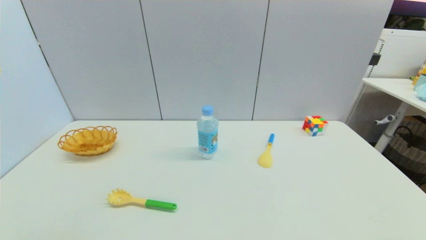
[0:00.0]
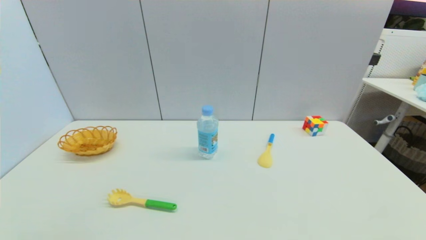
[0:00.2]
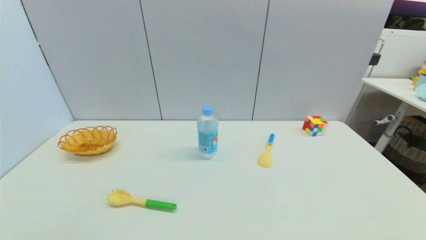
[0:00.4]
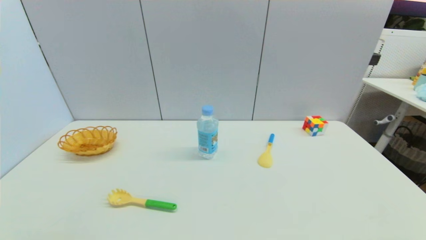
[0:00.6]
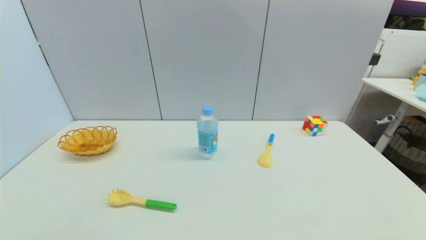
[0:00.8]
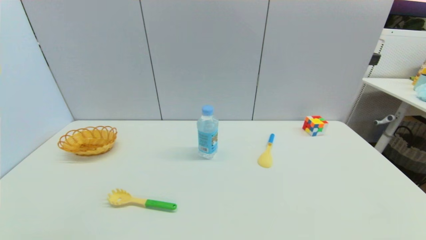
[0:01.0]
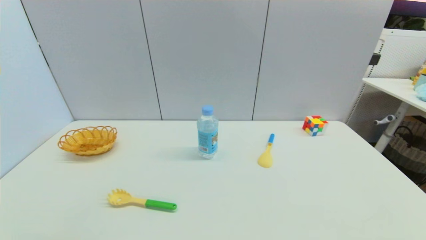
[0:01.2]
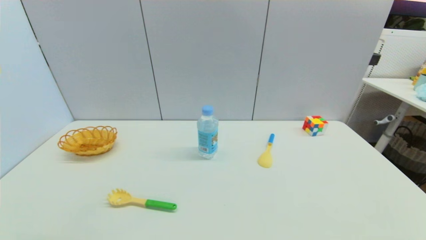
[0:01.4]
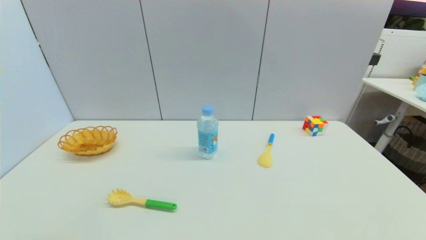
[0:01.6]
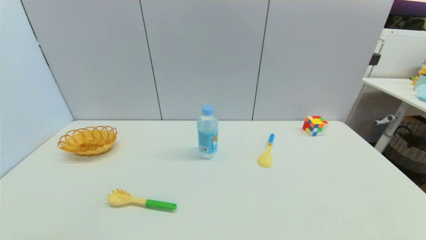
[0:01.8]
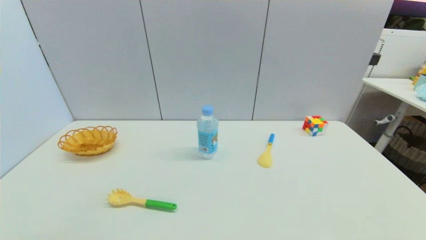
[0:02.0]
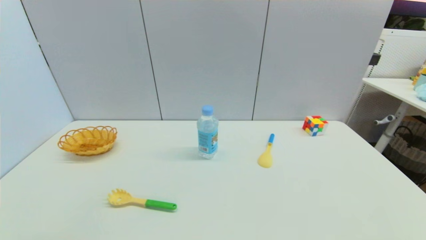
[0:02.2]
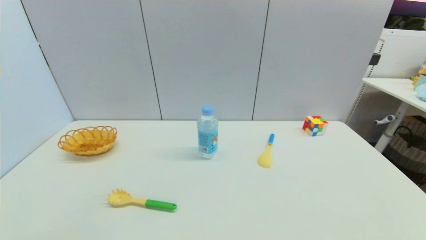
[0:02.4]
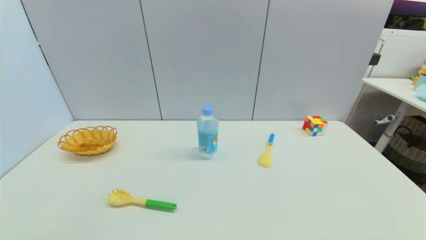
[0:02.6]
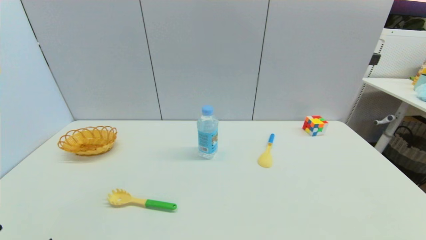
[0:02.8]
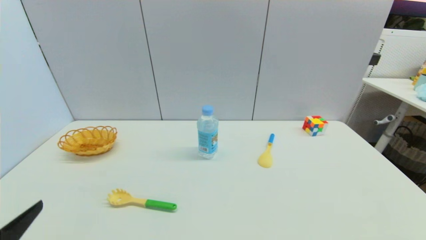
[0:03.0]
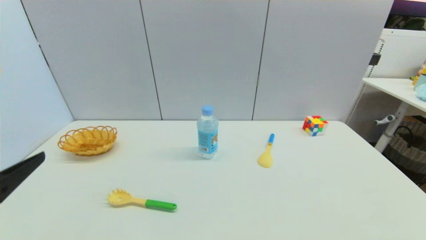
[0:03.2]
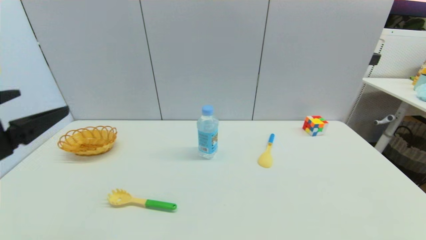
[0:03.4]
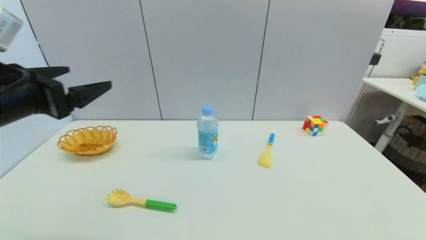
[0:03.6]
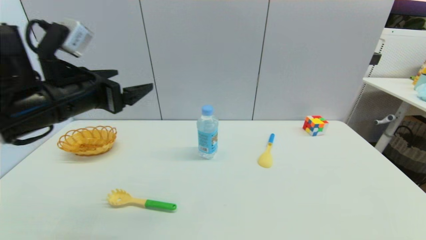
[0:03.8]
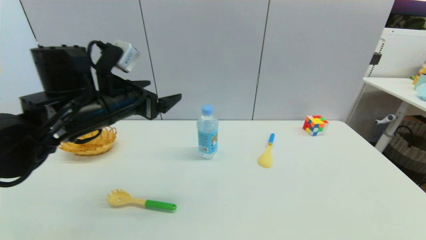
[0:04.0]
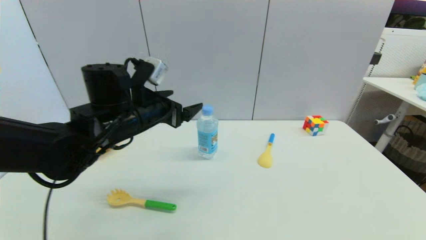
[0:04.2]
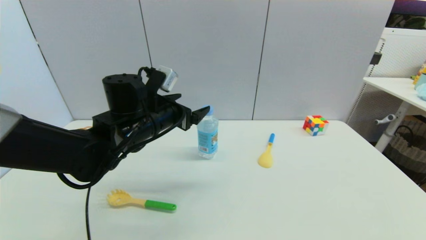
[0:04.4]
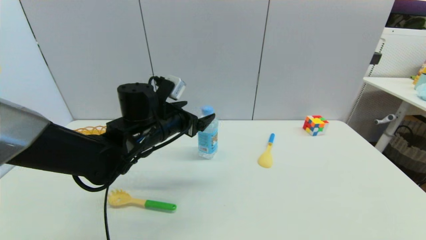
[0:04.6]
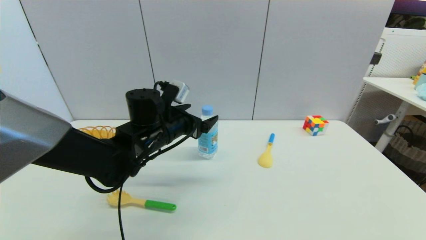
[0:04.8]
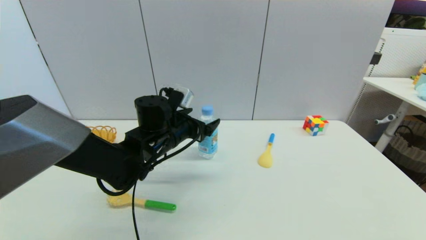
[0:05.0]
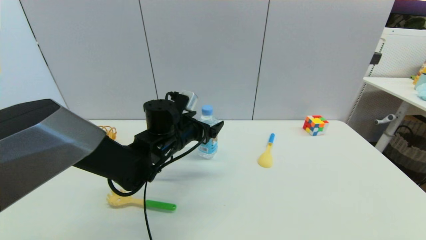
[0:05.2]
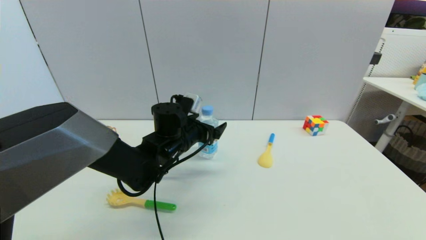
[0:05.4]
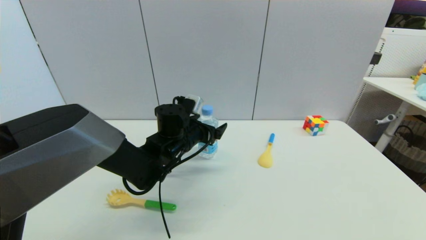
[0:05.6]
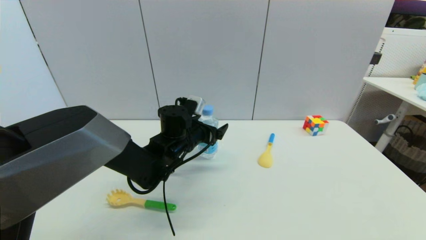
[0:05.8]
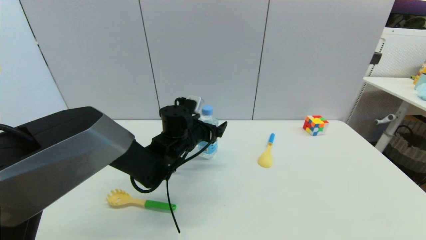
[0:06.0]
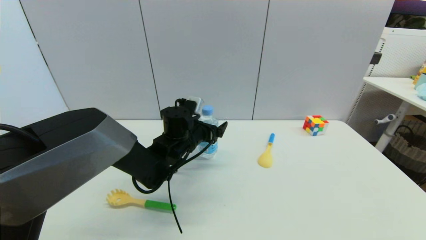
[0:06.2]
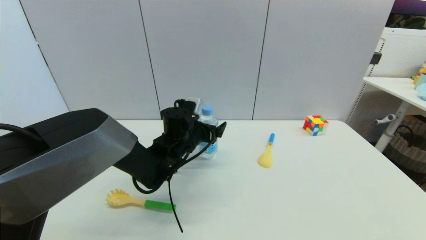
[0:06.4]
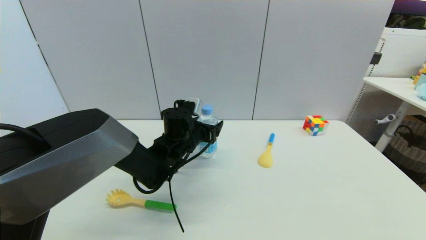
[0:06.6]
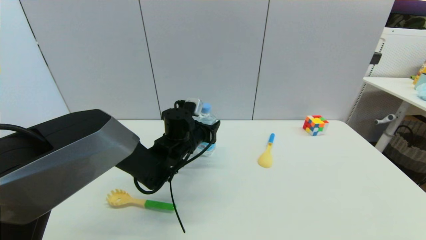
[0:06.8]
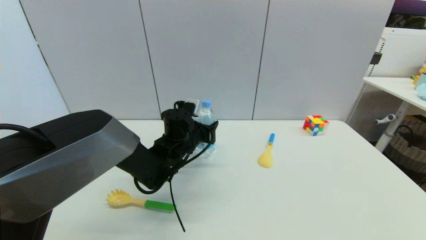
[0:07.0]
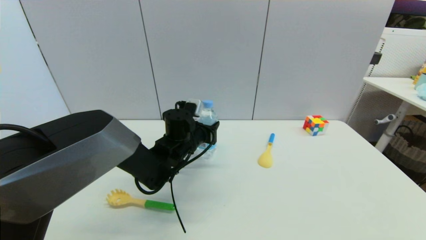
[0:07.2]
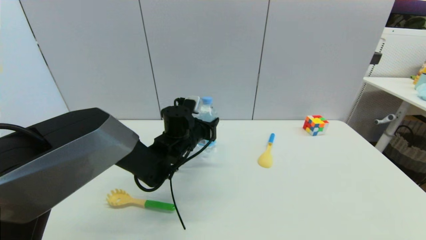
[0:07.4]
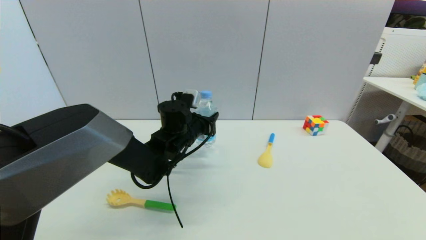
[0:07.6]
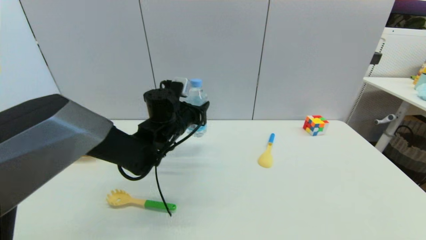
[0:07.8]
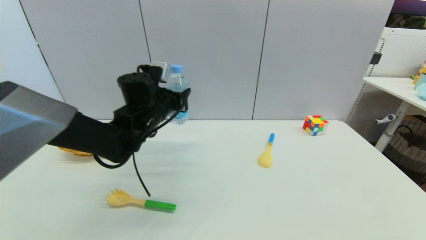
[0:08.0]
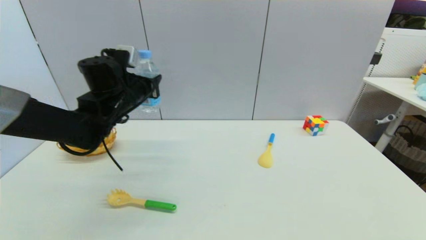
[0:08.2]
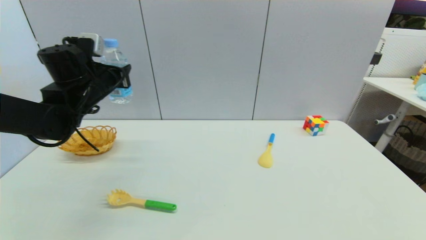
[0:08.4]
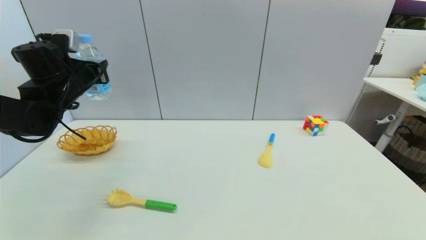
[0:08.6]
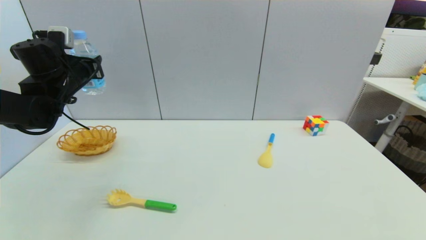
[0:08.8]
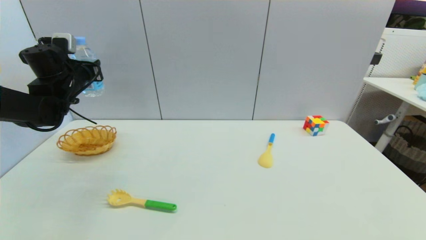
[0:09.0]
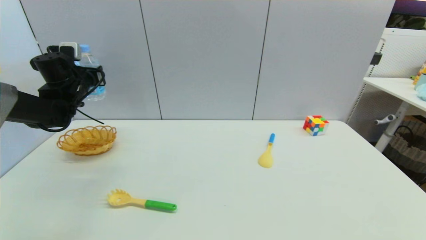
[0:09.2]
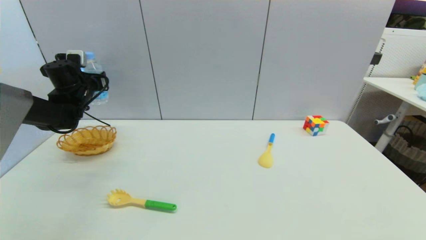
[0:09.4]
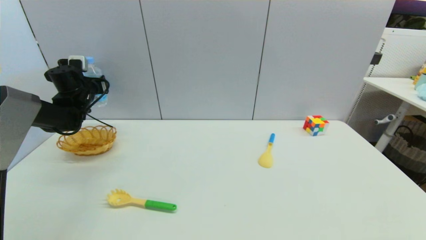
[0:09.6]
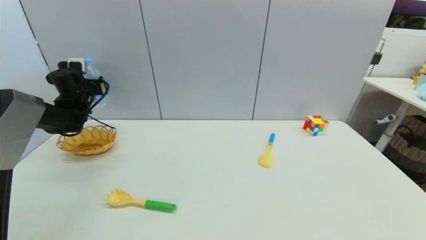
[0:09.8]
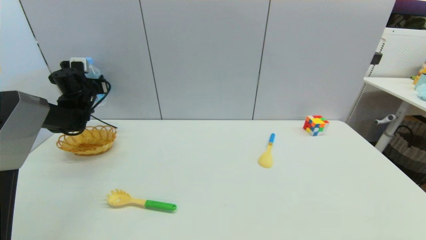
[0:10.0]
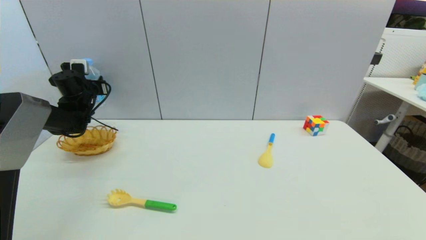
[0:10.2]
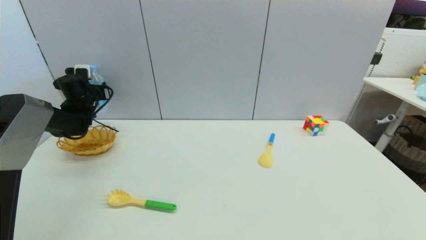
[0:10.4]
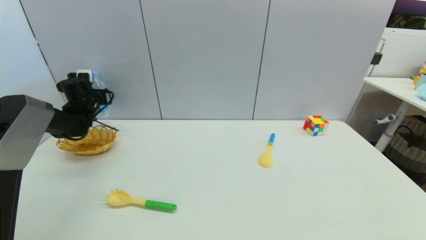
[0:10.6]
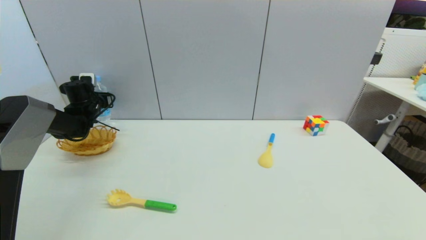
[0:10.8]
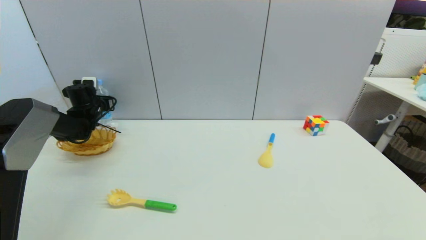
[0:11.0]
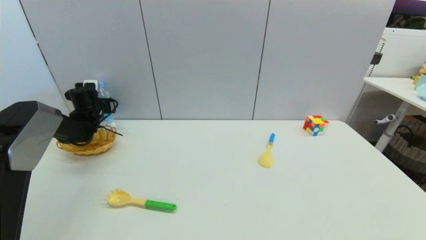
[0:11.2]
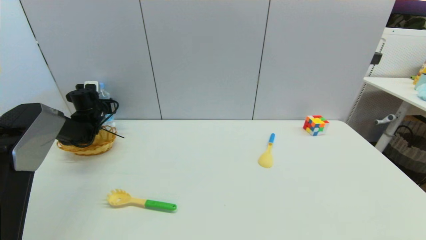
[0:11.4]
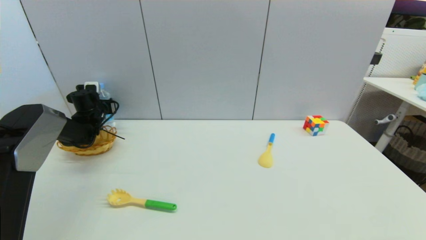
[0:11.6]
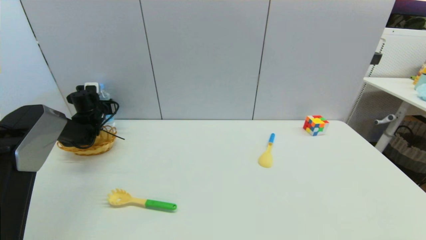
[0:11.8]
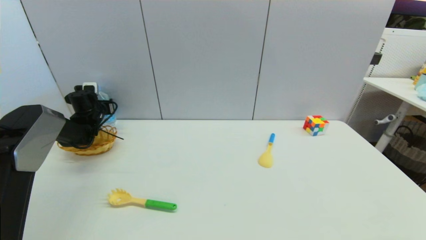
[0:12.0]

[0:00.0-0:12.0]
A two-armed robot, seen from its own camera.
Step, 0:02.4 to 0:07.0: Grasp the soda water with left gripper.
Step, 0:07.2 to 0:11.8: Place the soda water on the table with left gripper.
0:01.6 to 0:03.0: The left gripper is displaced upward and forward by approximately 10 cm.
0:03.0 to 0:04.4: The left gripper travels forward and to the right by approximately 30 cm.
0:04.4 to 0:06.0: The left gripper shifts about 10 cm downward and to the right.
0:06.0 to 0:07.6: The left gripper closes up.
0:07.6 to 0:09.0: The left gripper travels to the left and upward by some 30 cm.
0:09.0 to 0:10.4: The left gripper heads downward and forward, covering some 10 cm.
0:10.4 to 0:12.0: The left gripper heads downward, covering some 5 cm.

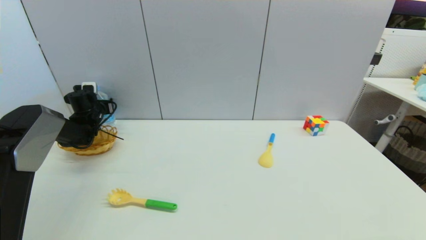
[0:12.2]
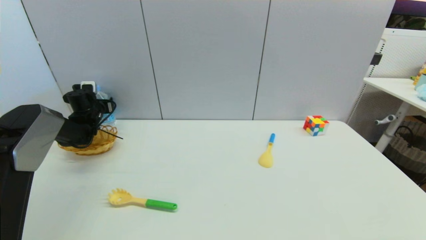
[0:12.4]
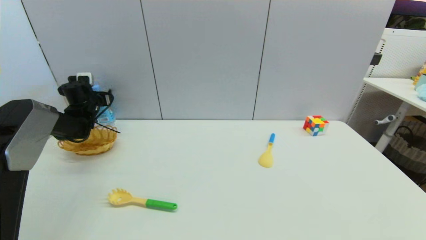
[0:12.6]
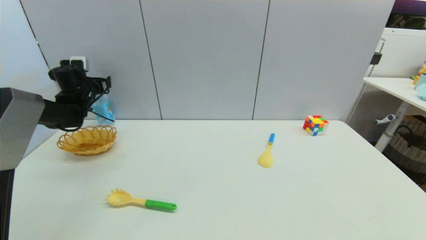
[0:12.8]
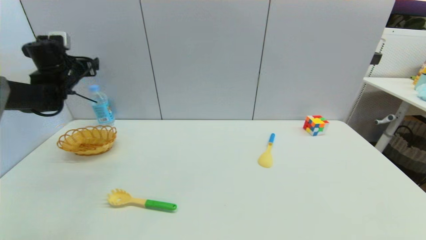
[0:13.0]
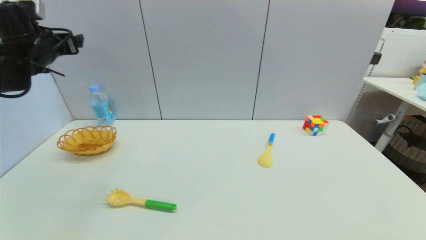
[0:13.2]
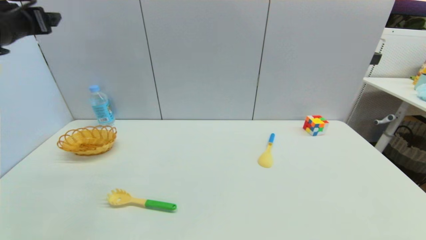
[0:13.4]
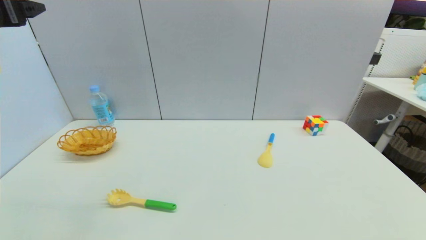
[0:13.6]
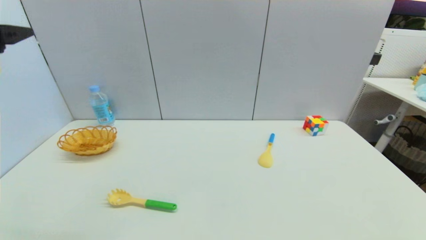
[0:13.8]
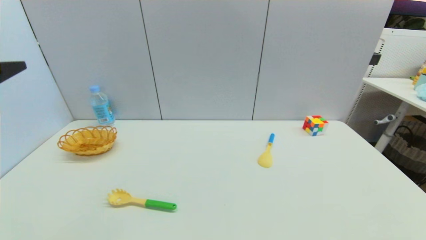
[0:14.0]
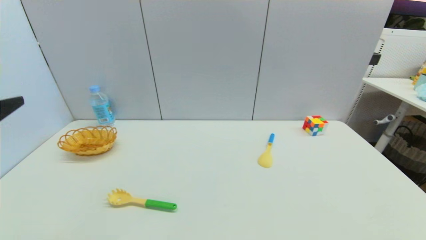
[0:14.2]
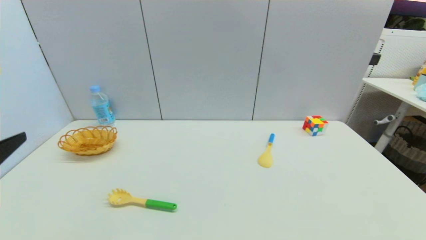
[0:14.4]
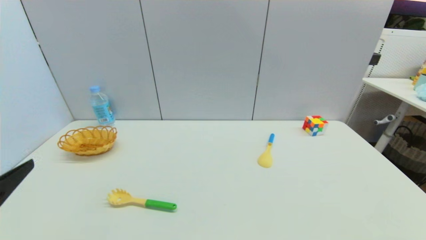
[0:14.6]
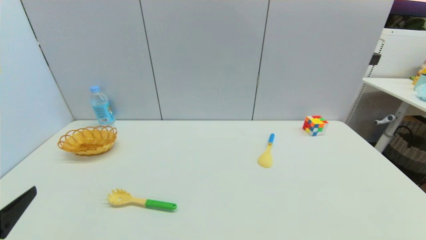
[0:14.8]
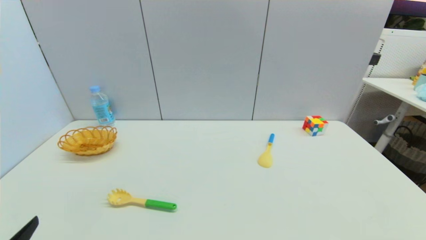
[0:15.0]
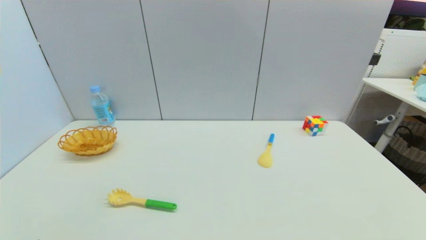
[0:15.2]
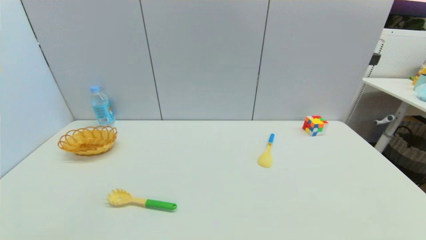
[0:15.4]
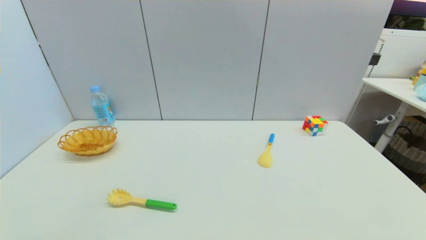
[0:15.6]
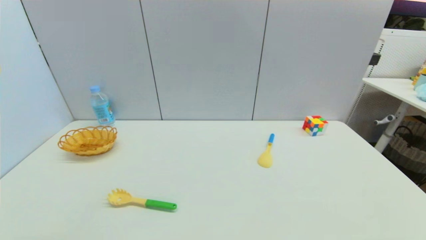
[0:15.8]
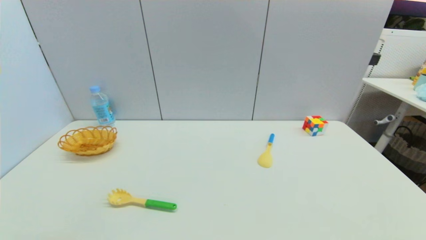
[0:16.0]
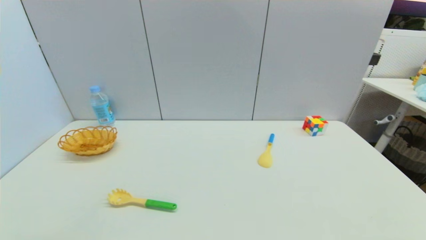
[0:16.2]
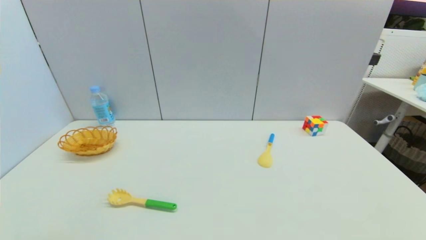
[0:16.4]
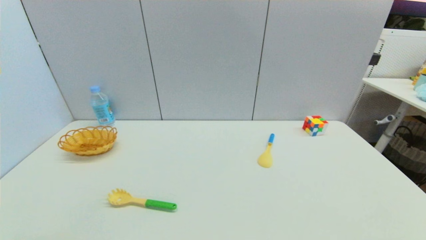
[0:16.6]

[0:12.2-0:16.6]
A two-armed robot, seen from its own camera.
0:12.2 to 0:13.6: The left gripper is displaced upward and backward by roughly 40 cm, and opens its fingers.
0:13.6 to 0:15.2: The left gripper shifts some 40 cm downward and backward.
